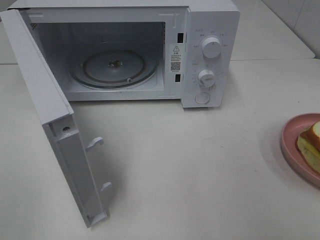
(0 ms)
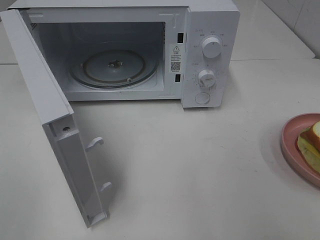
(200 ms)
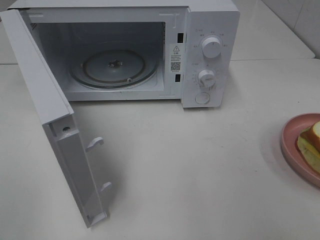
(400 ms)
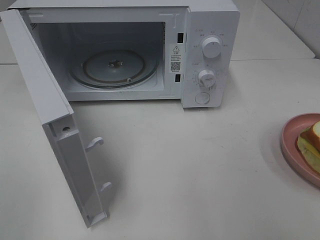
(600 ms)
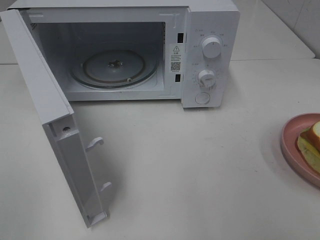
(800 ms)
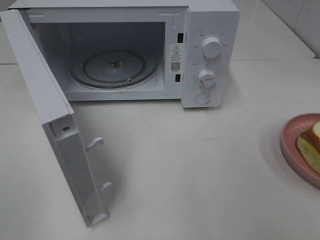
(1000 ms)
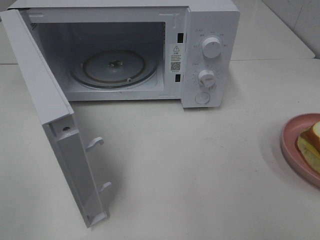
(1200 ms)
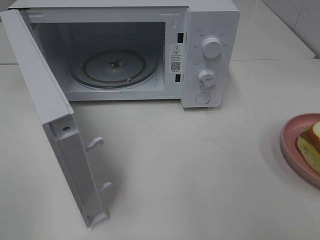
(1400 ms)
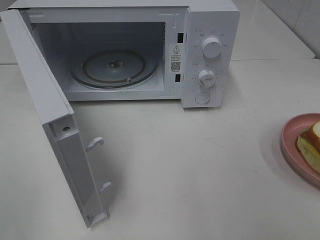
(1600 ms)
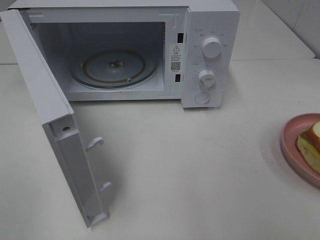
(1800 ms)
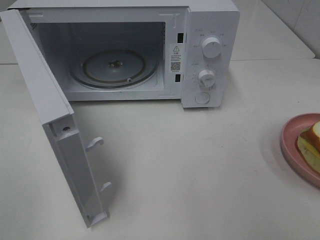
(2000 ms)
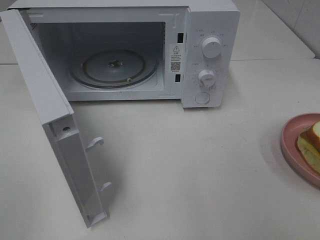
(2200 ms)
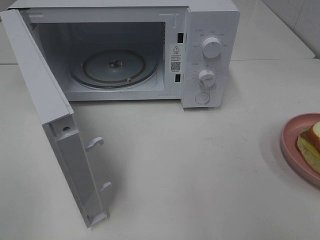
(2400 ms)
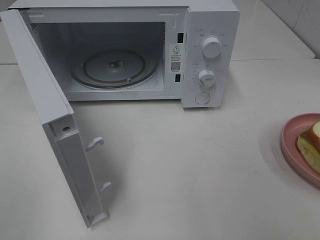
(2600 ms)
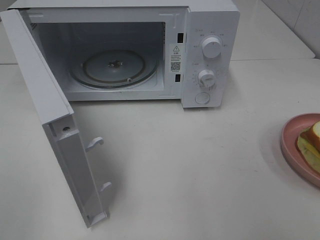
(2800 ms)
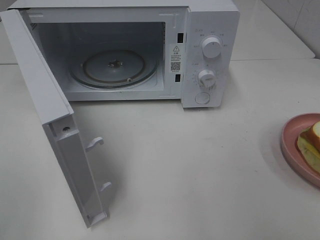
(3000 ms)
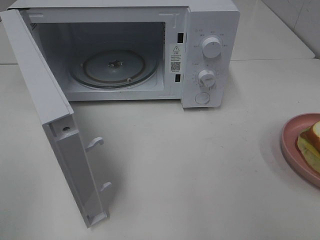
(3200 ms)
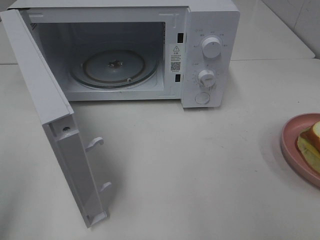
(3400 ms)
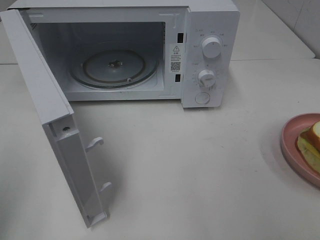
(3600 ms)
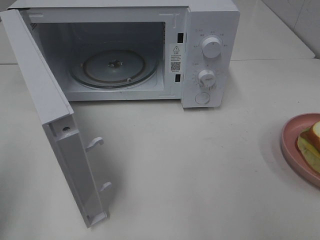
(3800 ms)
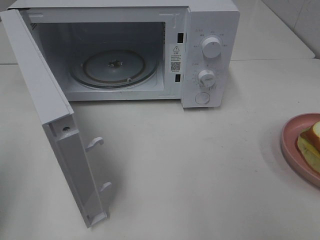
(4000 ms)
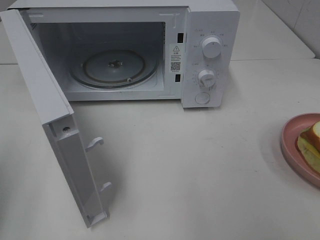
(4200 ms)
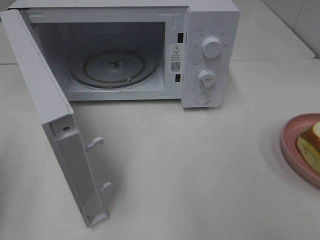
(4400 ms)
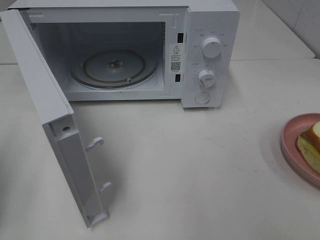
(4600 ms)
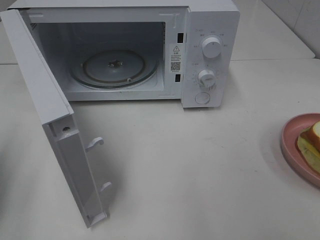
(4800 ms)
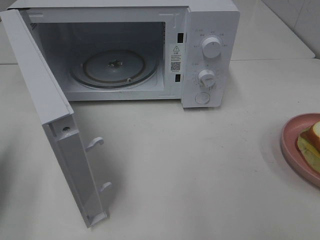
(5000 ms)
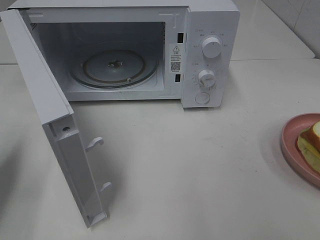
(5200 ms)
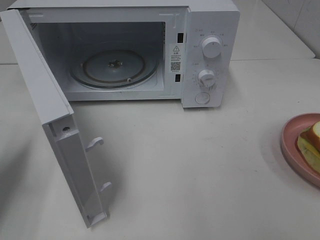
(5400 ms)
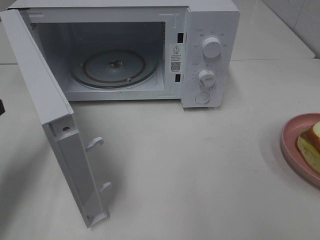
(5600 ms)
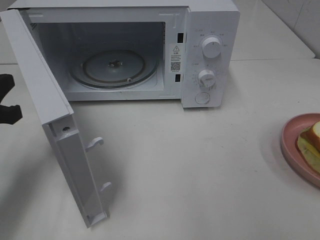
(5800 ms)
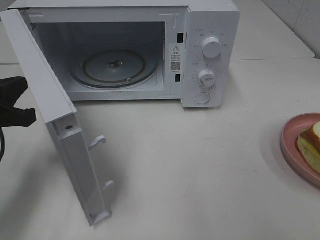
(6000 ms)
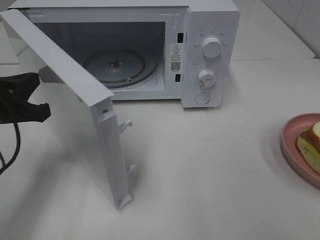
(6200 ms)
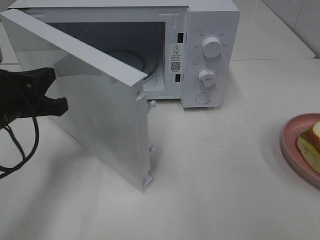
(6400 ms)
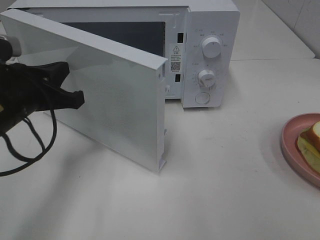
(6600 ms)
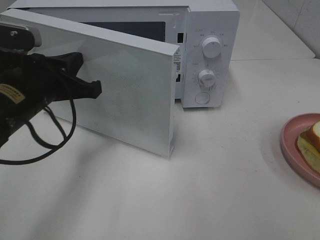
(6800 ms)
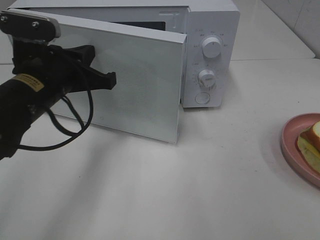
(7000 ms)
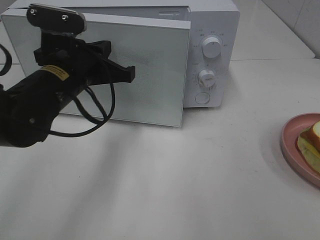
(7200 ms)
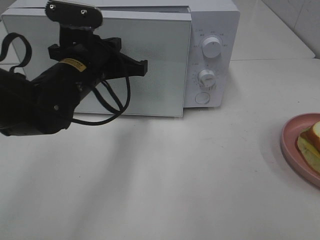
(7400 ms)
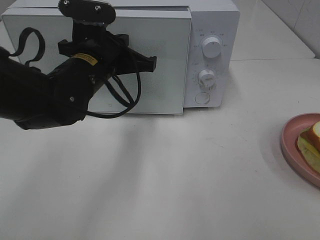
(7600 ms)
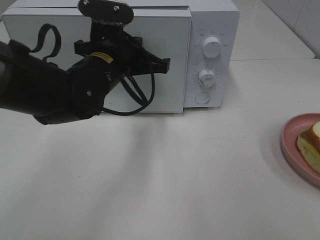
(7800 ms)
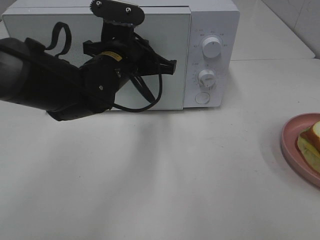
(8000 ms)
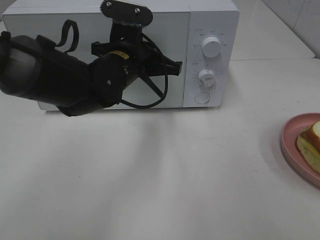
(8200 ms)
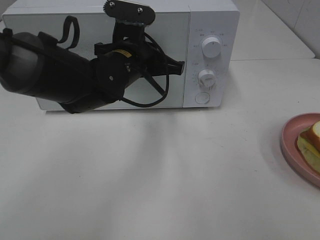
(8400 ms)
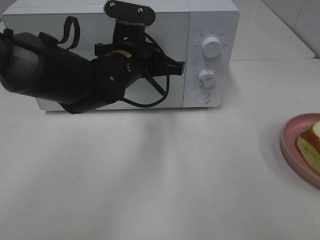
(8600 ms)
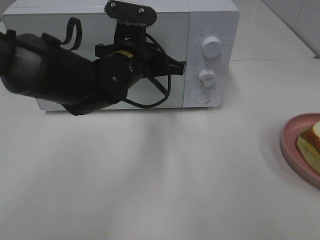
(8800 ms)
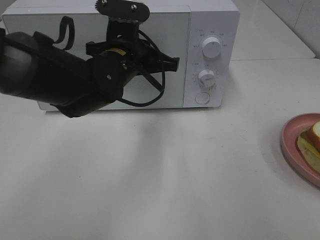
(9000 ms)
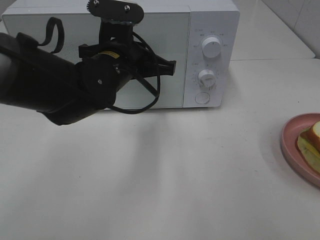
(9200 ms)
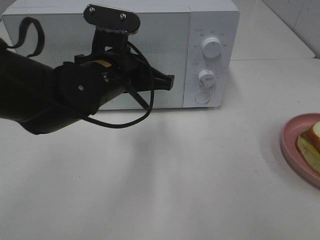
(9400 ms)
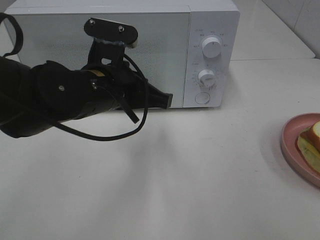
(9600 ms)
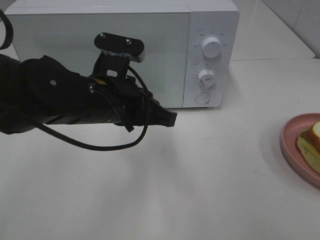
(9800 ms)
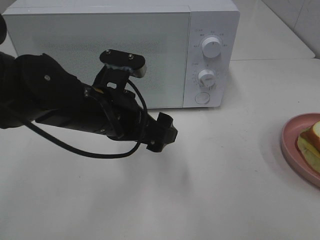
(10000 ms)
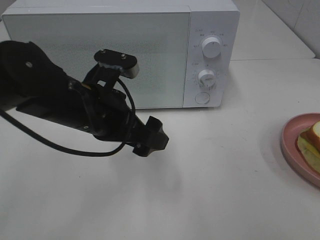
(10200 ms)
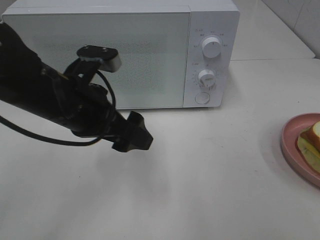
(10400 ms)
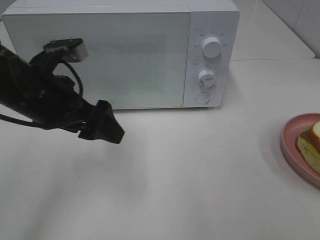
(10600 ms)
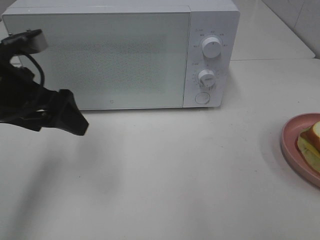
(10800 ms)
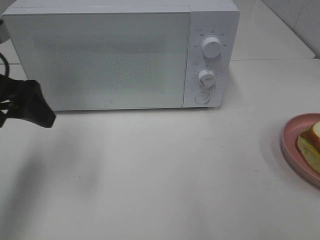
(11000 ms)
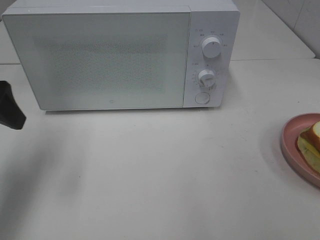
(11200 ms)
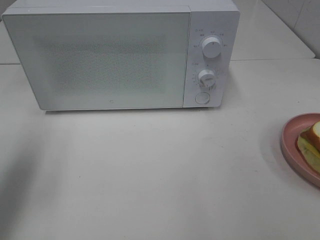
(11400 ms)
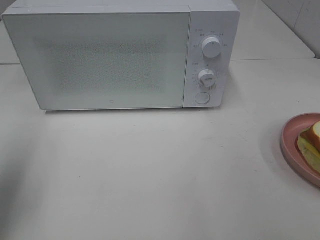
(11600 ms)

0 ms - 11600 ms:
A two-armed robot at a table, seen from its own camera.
Task of the whole recording: Heat Sandwich.
Step, 0 ms - 9200 ms: Left hand: close the microwave door.
1400 ms - 2800 ms: Neither gripper changes place.
4400 ms - 5800 ms: The left gripper heads forward, to the right and downward, covering about 15 cm.
5800 ms - 7200 ms: The left gripper moves to the right and forward, about 15 cm.
7200 ms - 8800 ms: The left gripper heads to the right, covering approximately 10 cm.
8800 ms - 10200 ms: The left gripper is displaced backward by about 10 cm, and opens.
10200 ms - 11600 ms: The left gripper heads to the left and upward, covering some 25 cm.

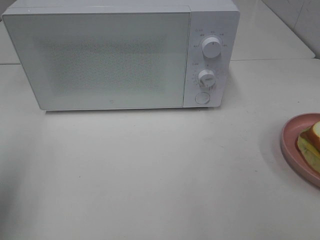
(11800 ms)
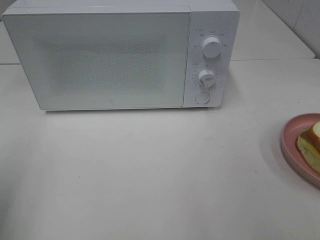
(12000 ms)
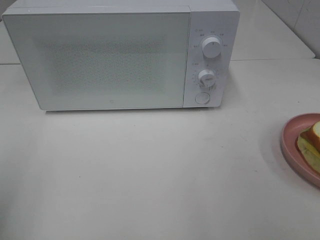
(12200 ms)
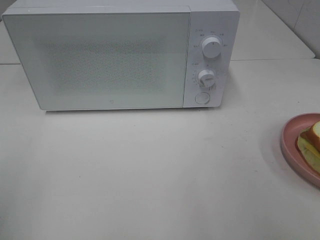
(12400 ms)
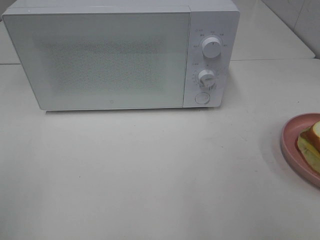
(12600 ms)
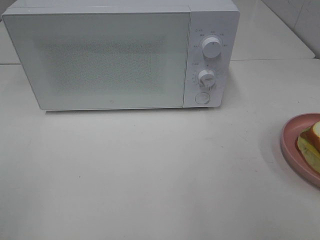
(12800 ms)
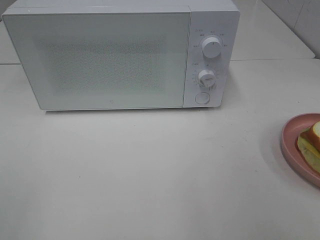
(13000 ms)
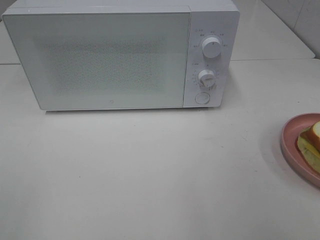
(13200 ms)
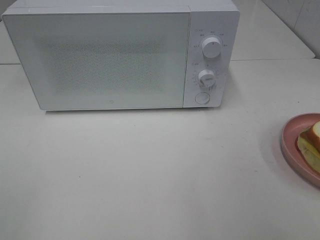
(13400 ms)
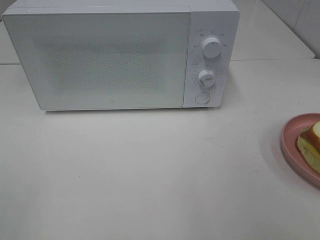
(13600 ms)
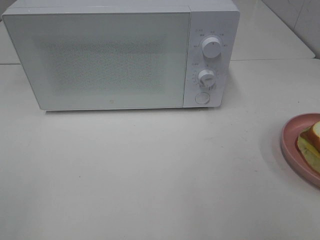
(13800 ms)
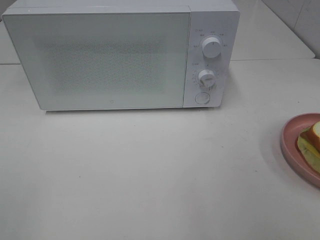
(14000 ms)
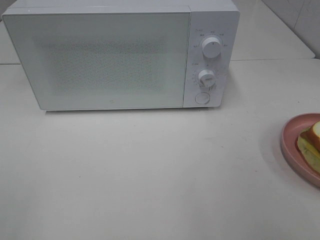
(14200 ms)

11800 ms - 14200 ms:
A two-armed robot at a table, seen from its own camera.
Task of the whole recording: Heat Sandwich.
11800 ms - 13000 ms: The left gripper moves backward, roughly 15 cm.
13000 ms - 14200 ms: Both grippers stay about where they are.

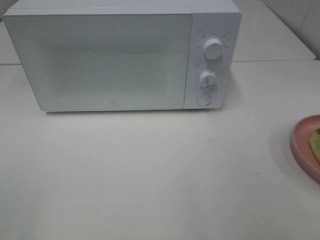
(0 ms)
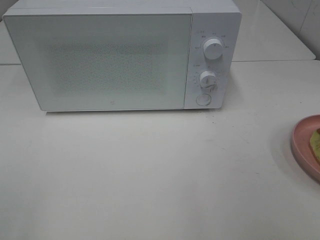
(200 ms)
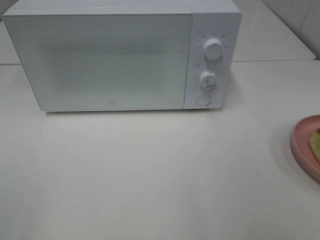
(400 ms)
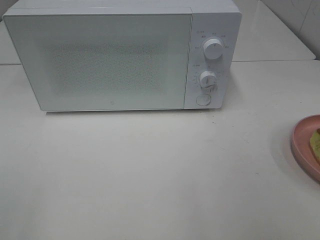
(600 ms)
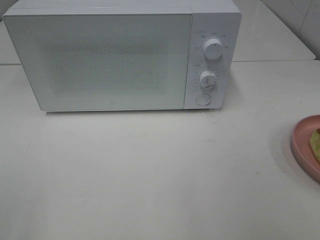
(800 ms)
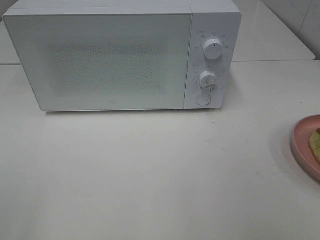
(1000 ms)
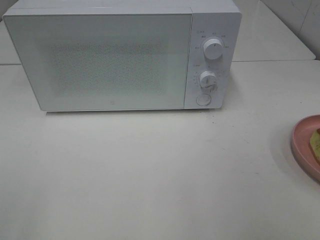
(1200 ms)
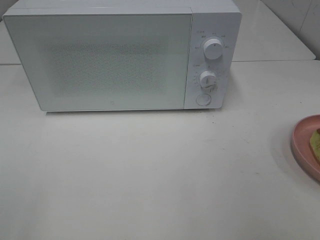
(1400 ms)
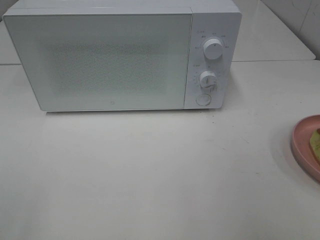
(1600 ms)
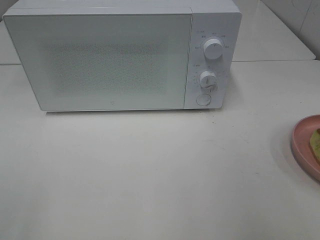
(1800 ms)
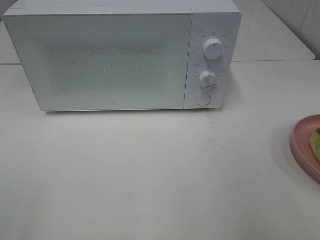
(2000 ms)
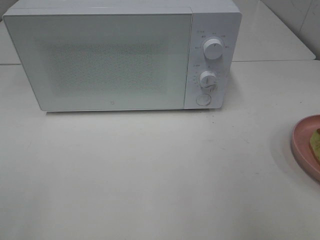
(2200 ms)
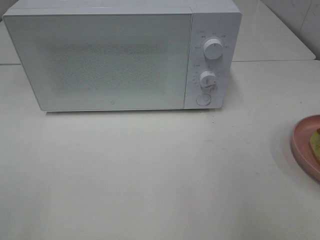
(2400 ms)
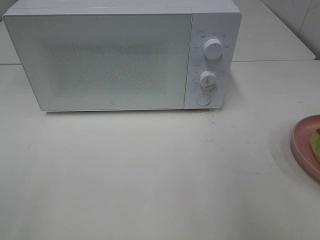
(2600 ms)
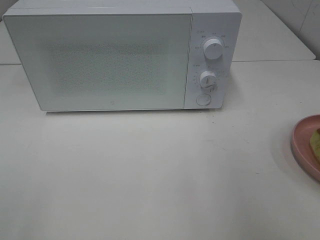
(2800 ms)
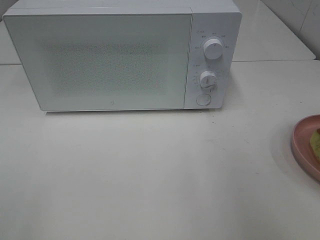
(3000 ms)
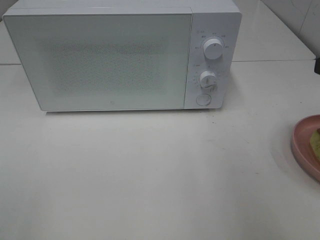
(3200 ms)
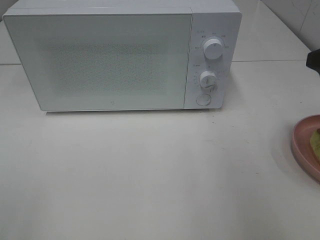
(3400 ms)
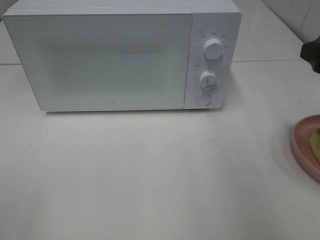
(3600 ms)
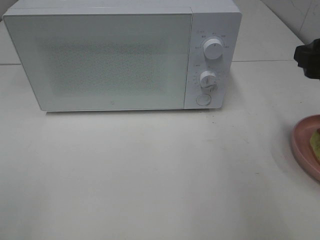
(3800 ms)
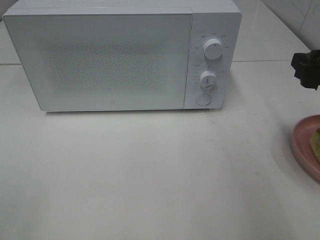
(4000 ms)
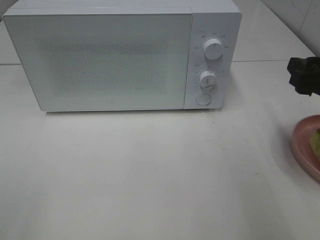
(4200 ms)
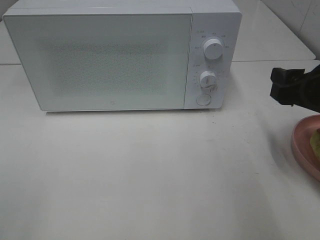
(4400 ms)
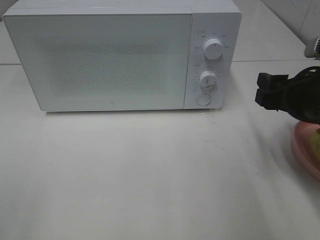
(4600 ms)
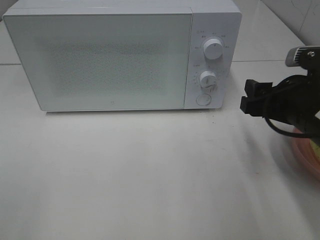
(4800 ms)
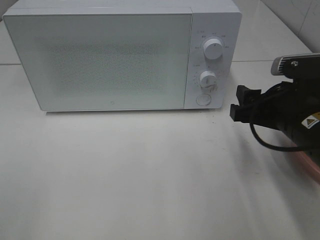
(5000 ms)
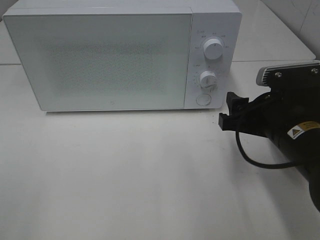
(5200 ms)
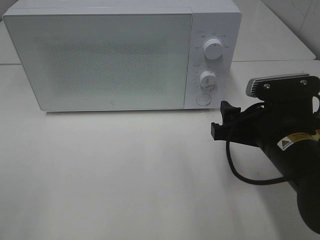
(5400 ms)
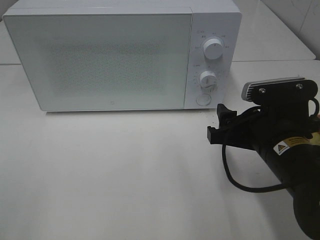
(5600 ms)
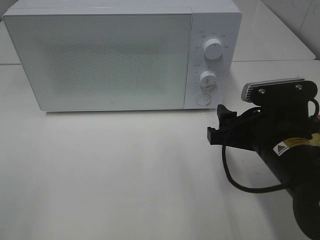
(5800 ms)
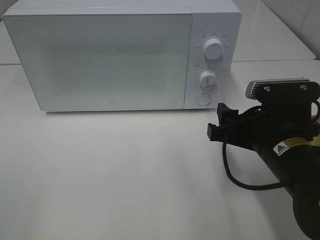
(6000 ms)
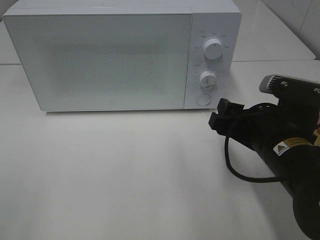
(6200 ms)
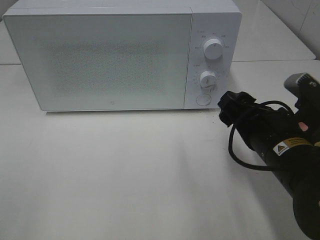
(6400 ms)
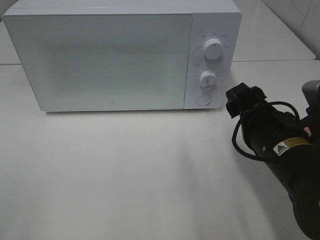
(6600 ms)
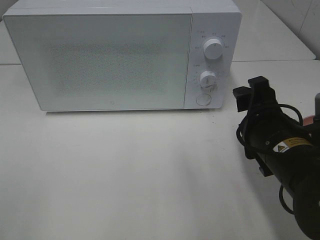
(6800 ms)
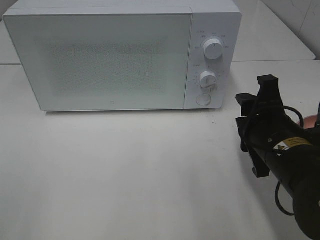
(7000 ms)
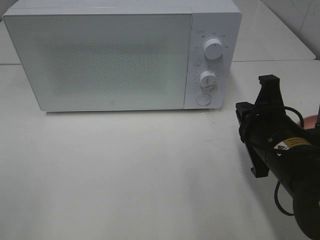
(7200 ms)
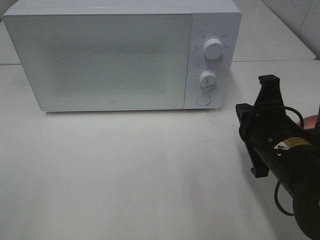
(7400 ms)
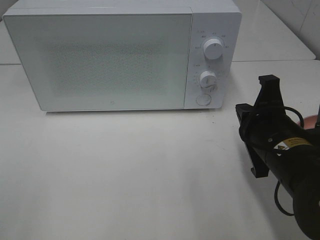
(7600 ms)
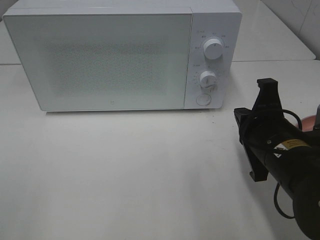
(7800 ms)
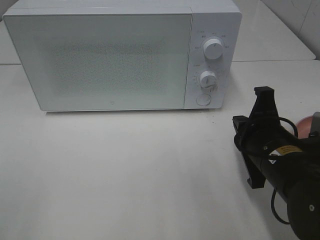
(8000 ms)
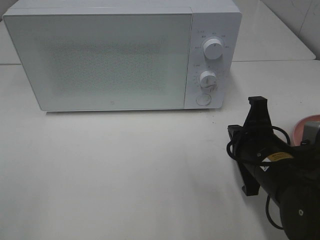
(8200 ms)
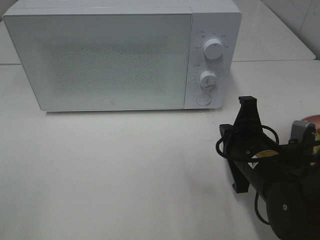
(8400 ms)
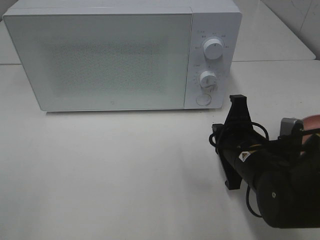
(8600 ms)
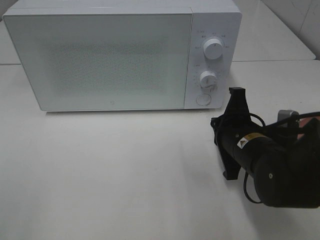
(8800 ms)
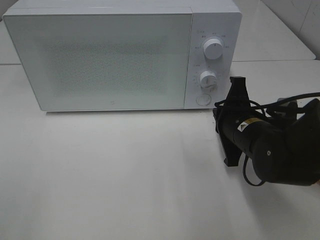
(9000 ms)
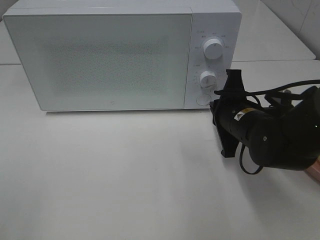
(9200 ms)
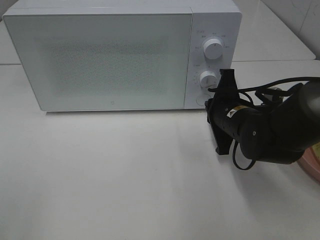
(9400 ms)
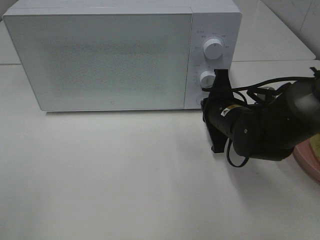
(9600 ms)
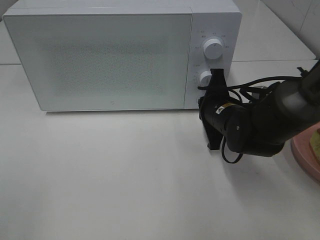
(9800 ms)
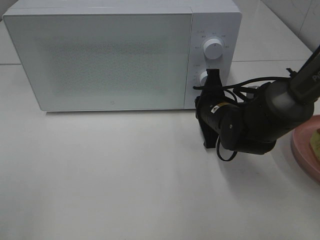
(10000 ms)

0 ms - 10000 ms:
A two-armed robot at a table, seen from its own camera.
Task of the whole recording: Heat Sandwich.
2800 ms - 4200 ms: The right gripper heads downward and forward, covering about 10 cm.
4200 ms - 5800 ms: The right gripper shifts approximately 10 cm to the left and downward.
5800 ms - 7200 ms: The right gripper closes its fingers.
7200 ms - 8600 ms: The right gripper changes place by approximately 5 cm.
8600 ms - 10000 ms: The right gripper travels forward by about 10 cm.
